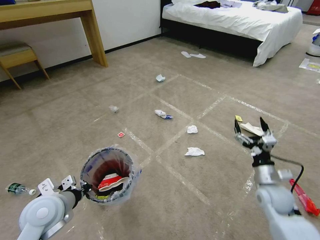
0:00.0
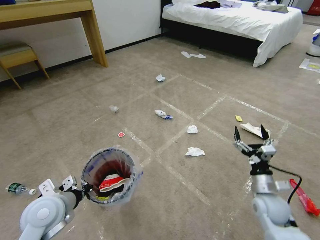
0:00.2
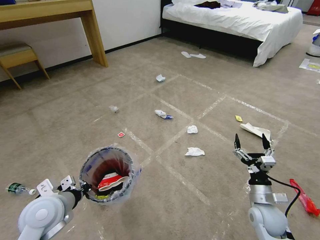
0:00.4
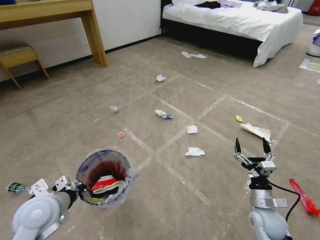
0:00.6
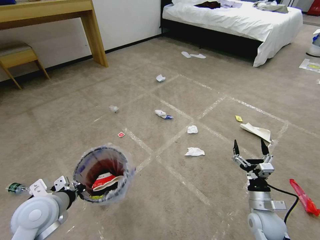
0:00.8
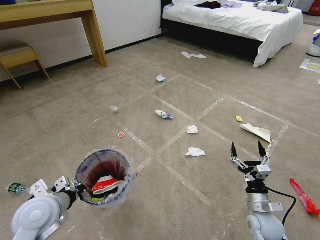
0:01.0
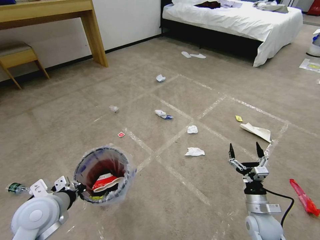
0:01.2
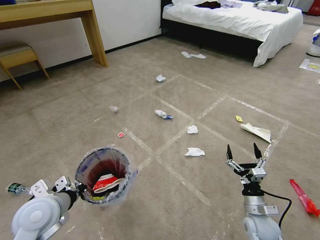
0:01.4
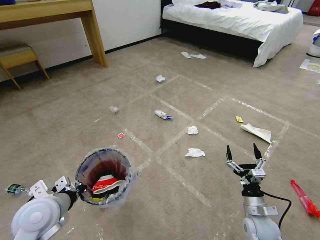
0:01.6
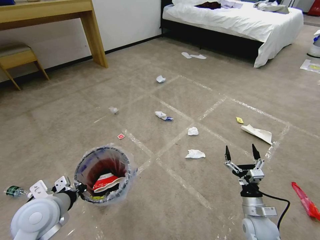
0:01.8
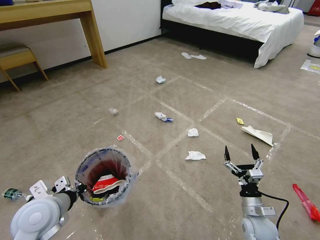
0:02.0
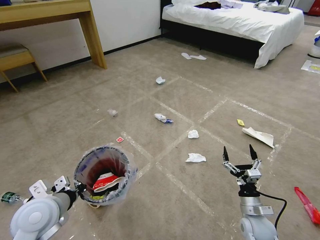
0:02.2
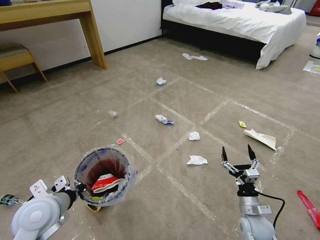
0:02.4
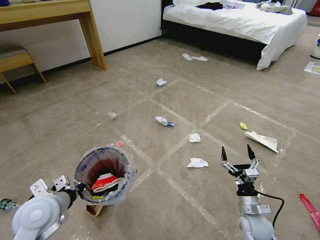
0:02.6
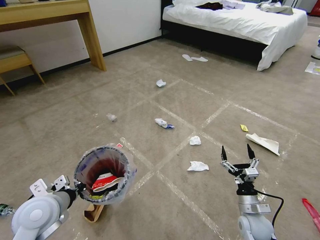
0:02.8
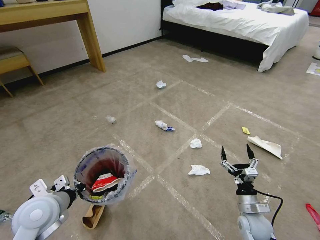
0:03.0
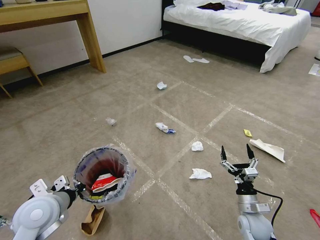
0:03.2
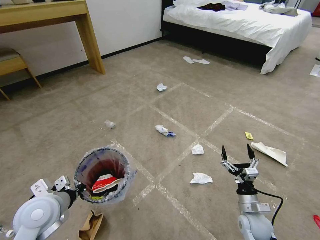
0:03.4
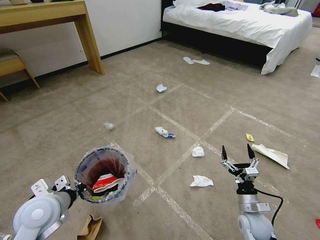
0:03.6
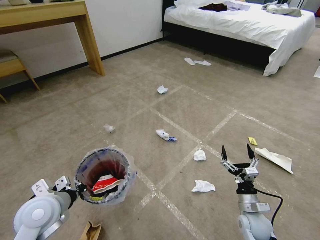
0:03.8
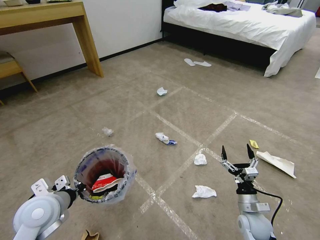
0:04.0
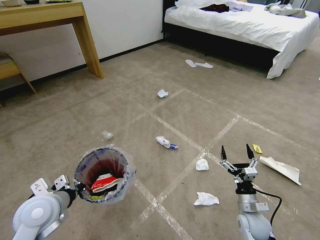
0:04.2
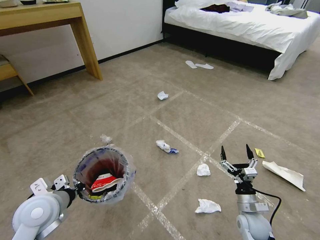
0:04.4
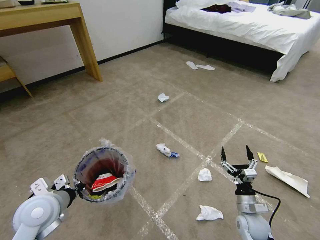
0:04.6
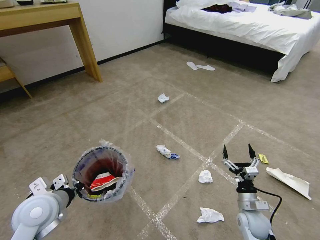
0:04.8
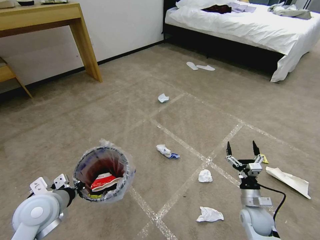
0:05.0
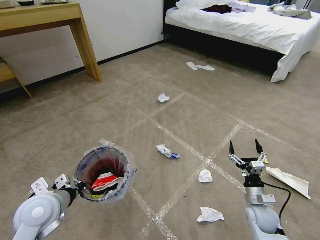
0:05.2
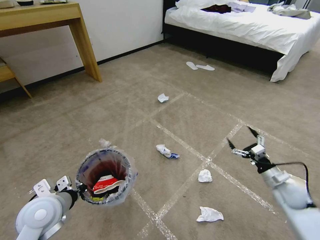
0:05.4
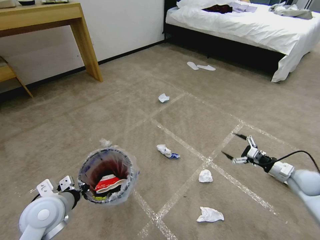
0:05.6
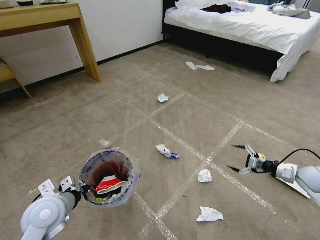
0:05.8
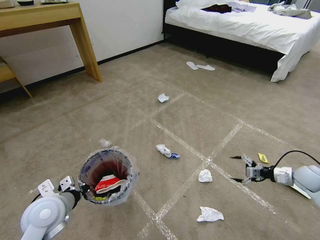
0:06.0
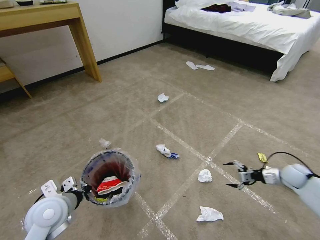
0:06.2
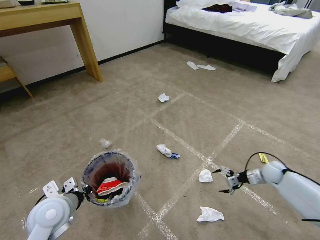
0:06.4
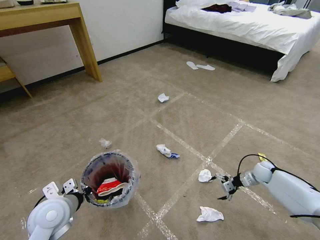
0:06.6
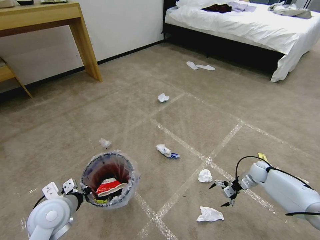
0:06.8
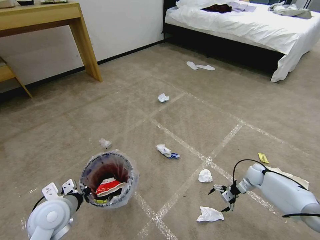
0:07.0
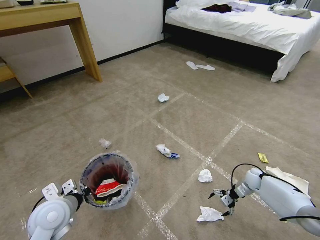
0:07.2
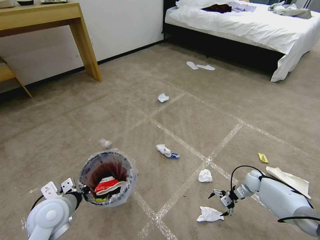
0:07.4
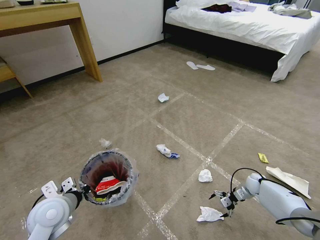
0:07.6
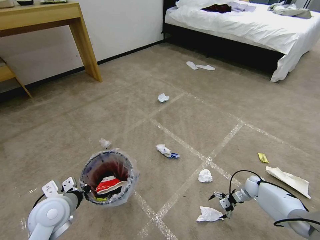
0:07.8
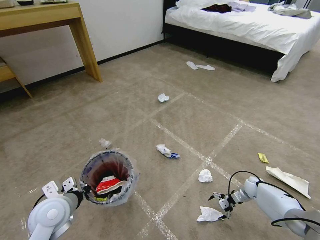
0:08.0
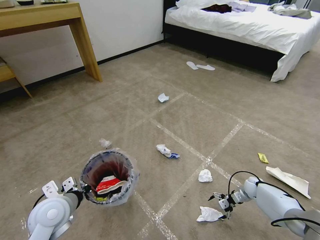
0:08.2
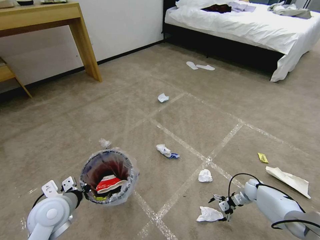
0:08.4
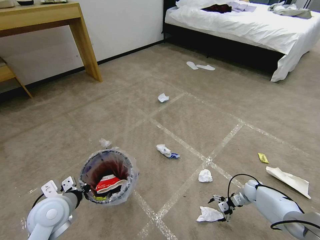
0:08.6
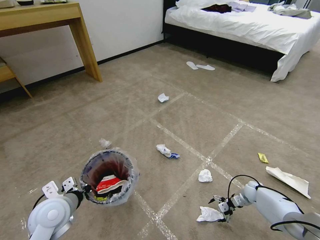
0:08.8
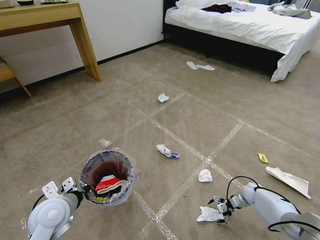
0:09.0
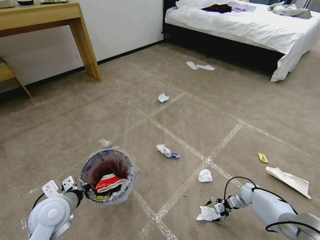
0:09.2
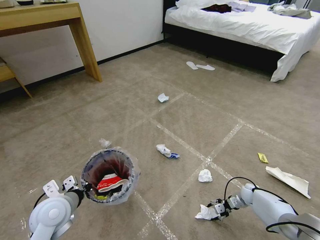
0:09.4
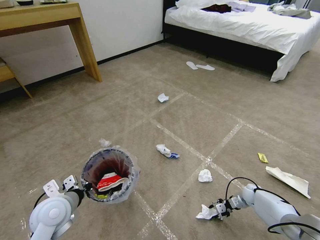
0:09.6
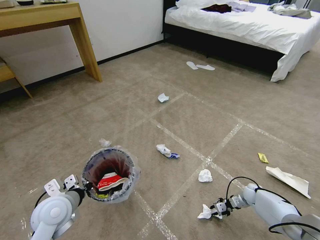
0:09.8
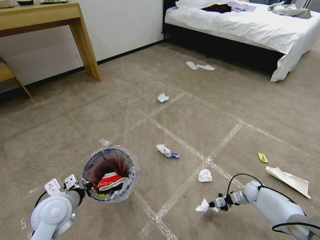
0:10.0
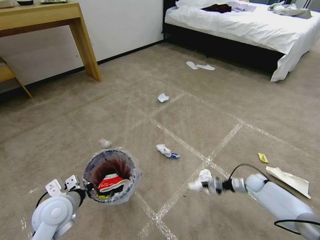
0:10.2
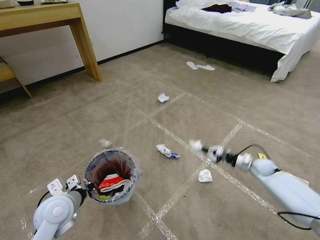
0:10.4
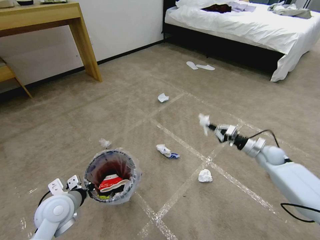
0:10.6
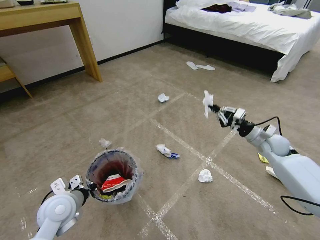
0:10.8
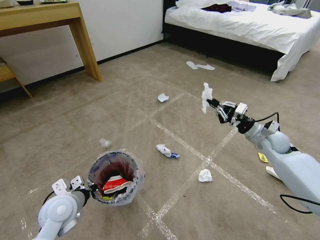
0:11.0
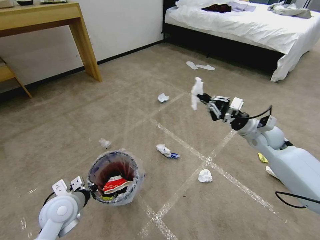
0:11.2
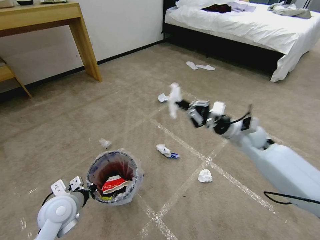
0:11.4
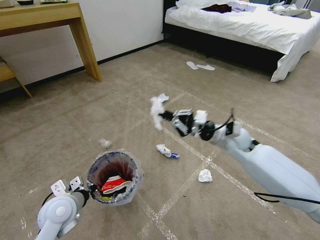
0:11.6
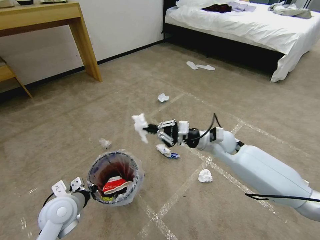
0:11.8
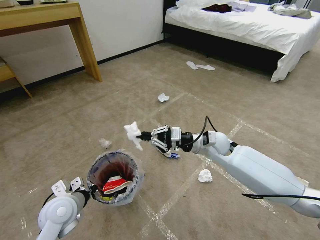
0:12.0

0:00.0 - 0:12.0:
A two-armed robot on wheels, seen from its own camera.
Task of the whole recording: Pick up the trash bin and place the garbage on the floor into it.
0:00.0 - 0:01.6: The right gripper heads downward and backward, covering about 10 cm.
0:01.6 - 0:03.0: The grippers make only small movements.
0:04.4 - 0:06.0: The right gripper travels to the right, forward and upward by approximately 30 cm.
0:06.0 - 0:07.6: The right gripper heads downward and to the left, covering roughly 20 cm.
0:07.6 - 0:09.0: The right gripper changes place by approximately 5 cm.
0:09.0 - 0:10.4: The right gripper heads upward, covering some 10 cm, and closes its fingers.
0:10.4 - 0:12.0: The right gripper is displaced to the left and upward by roughly 30 cm.

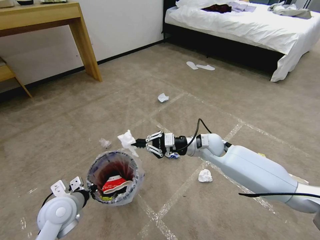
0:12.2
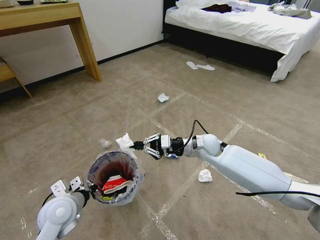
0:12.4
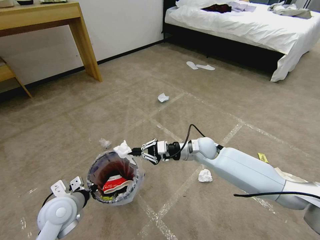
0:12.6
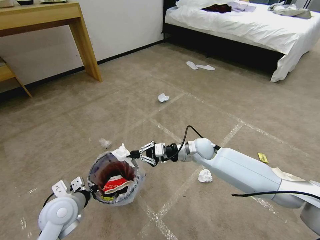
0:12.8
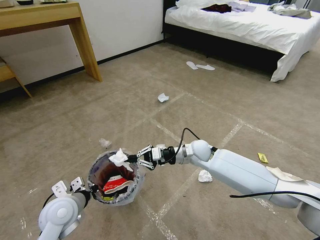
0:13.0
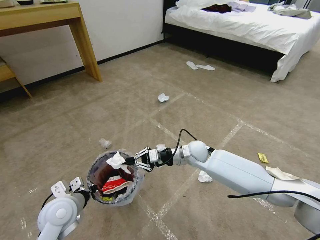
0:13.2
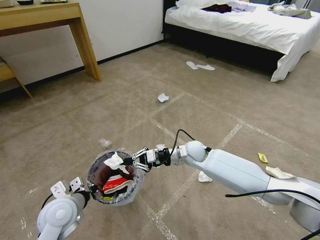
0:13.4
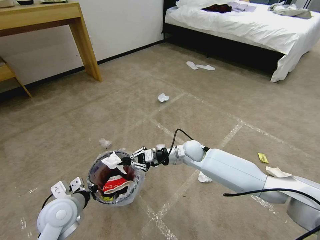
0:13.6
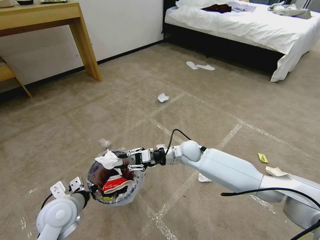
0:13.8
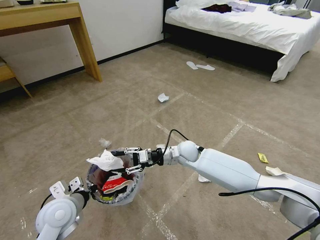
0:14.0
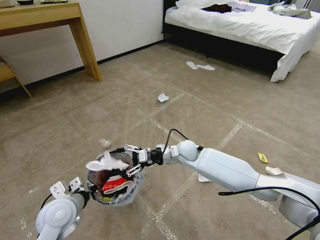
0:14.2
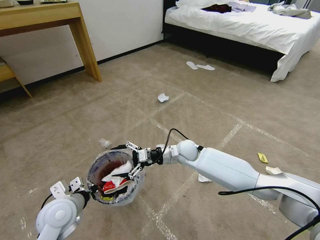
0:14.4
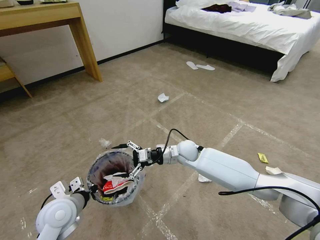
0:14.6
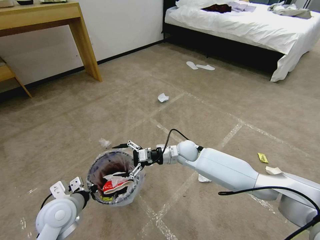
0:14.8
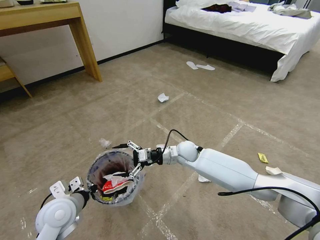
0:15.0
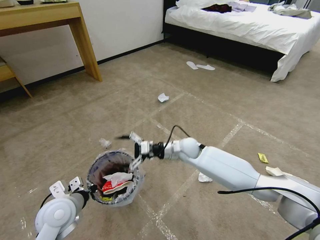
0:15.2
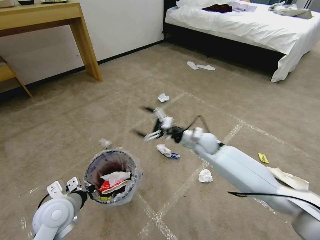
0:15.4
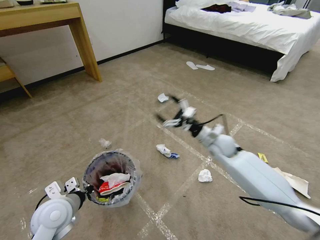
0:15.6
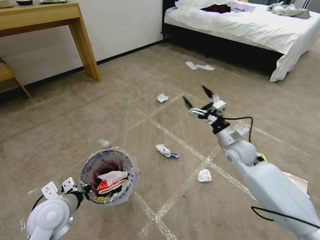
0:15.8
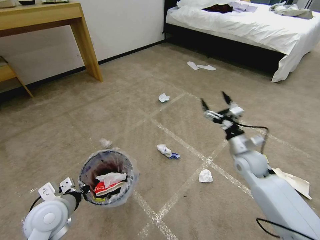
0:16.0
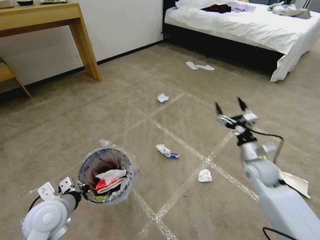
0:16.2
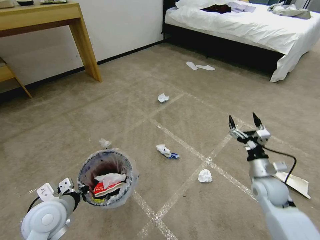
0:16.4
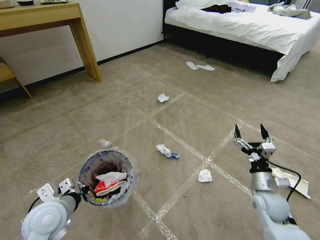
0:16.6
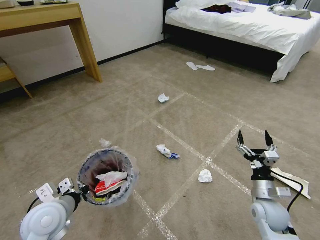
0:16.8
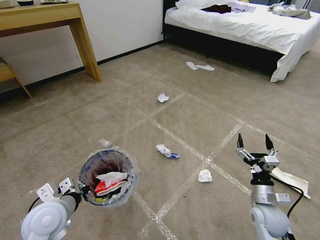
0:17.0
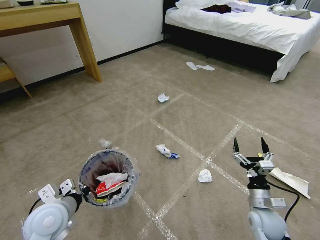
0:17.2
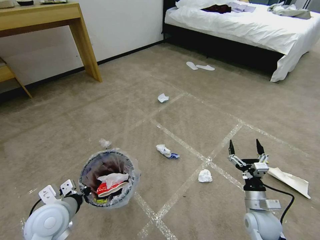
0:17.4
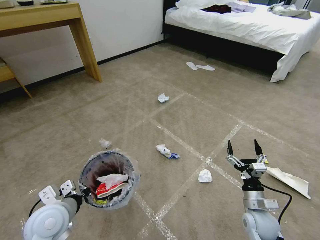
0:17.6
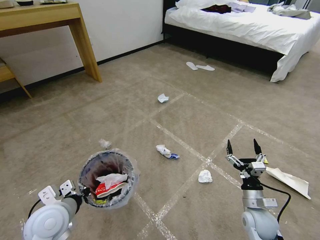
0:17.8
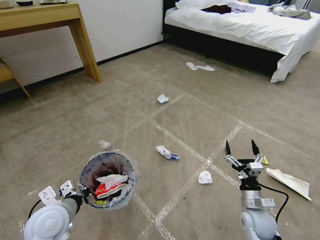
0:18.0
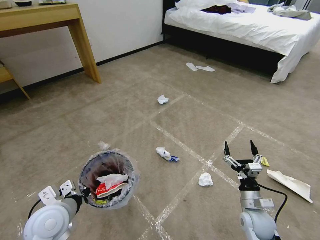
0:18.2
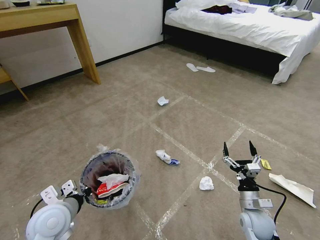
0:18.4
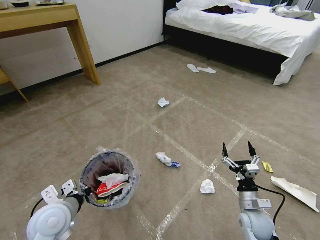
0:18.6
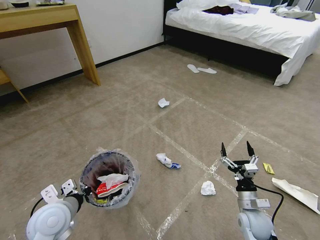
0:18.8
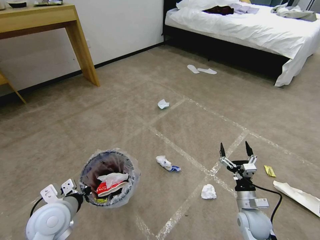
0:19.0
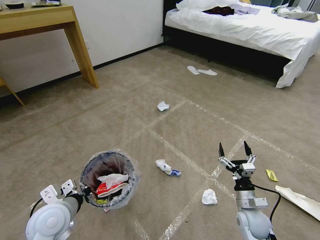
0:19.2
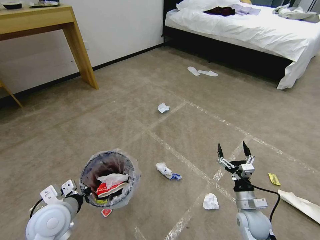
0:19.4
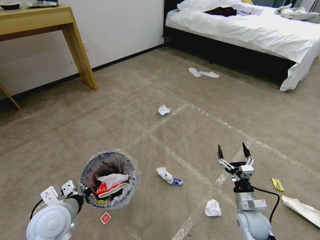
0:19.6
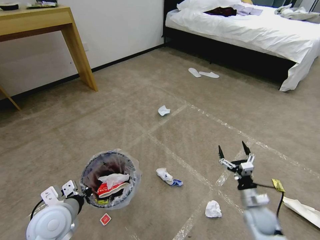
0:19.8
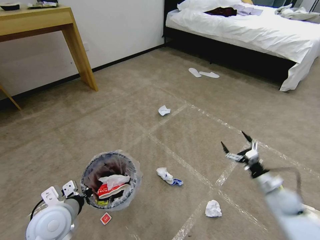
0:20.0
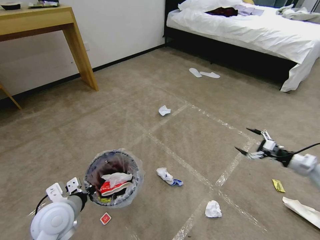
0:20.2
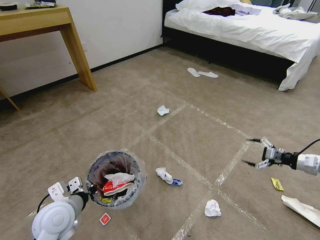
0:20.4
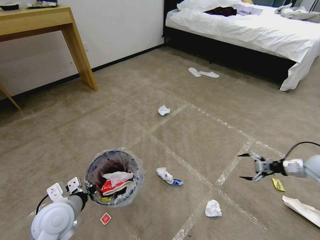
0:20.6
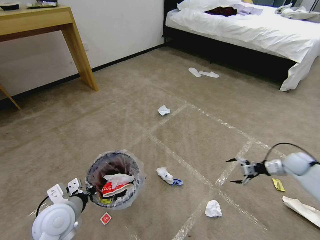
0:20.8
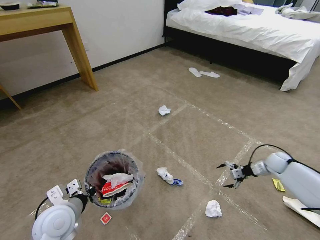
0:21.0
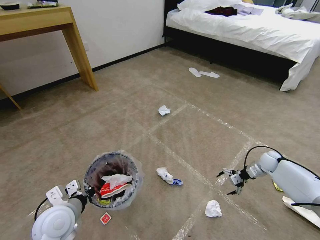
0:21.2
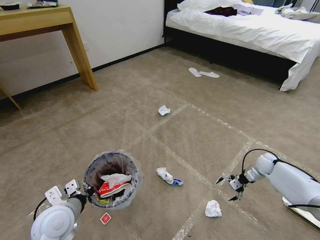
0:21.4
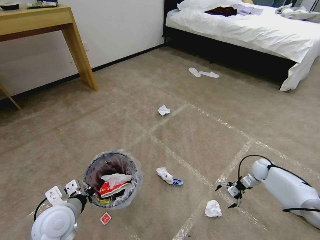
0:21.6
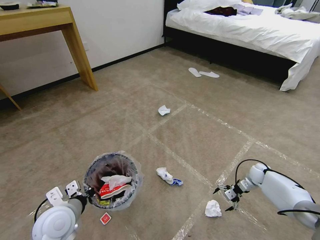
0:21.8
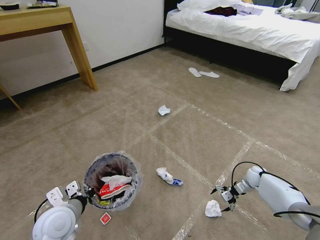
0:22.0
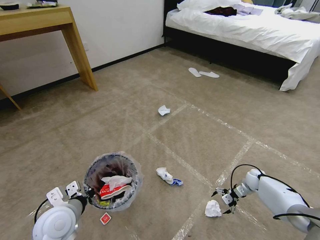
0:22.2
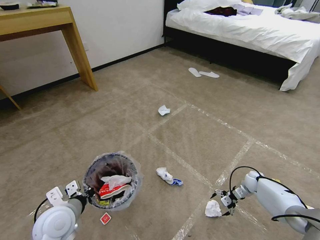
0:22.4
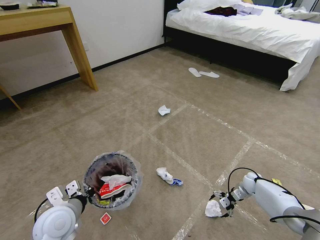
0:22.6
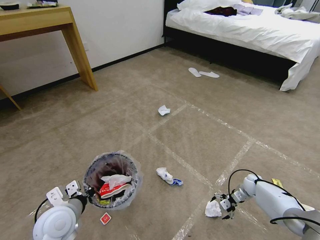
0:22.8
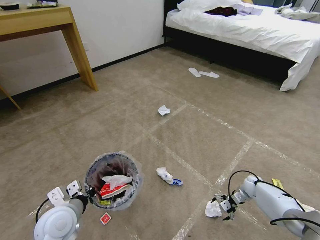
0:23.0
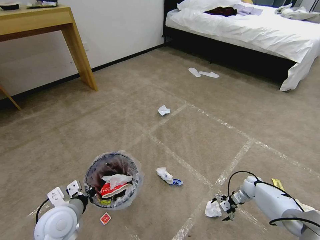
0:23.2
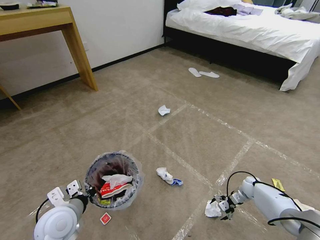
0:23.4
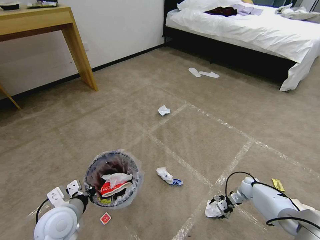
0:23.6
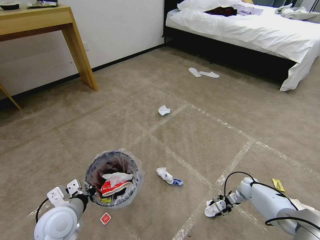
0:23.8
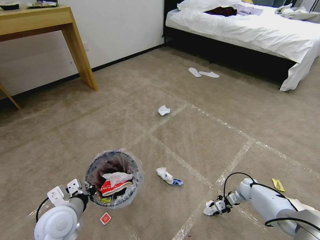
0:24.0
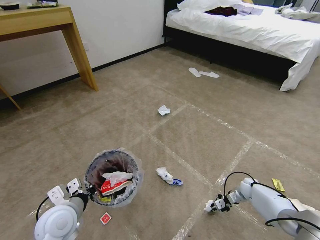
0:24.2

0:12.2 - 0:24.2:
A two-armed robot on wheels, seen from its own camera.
Task of the whole recording: Pick up the trash bin and place the garbage on the floor into it.
0:12.2 - 0:13.8: The right gripper shifts some 10 cm to the left and downward.
0:13.8 - 0:15.2: The right gripper opens its fingers.
0:15.2 - 0:16.6: The right gripper goes roughly 30 cm to the right and backward.
0:16.6 - 0:18.2: The right gripper shifts about 5 cm downward.
0:19.8 - 0:21.2: The right gripper travels forward and to the right by about 30 cm.
0:21.2 - 0:22.6: The right gripper goes some 15 cm downward and to the left.
0:22.6 - 0:24.2: The right gripper closes up.
